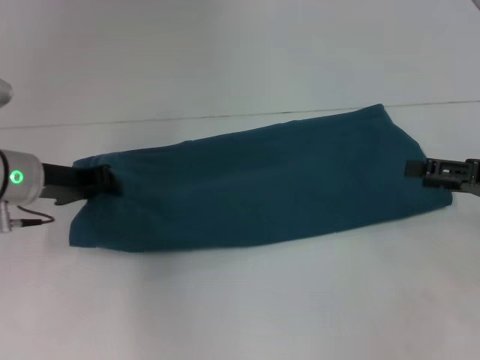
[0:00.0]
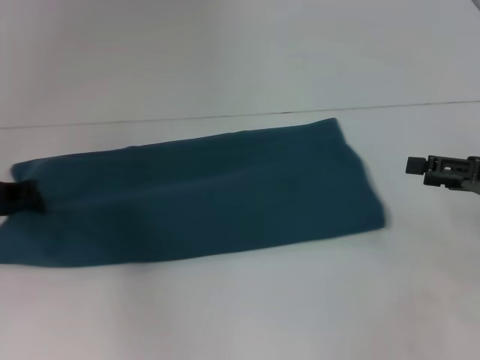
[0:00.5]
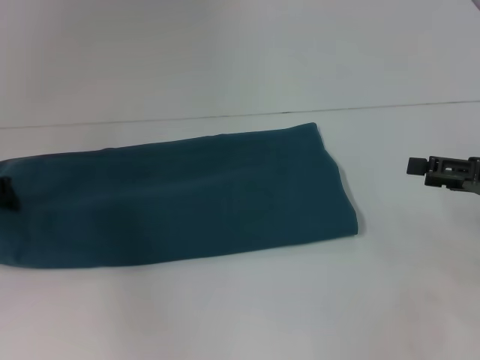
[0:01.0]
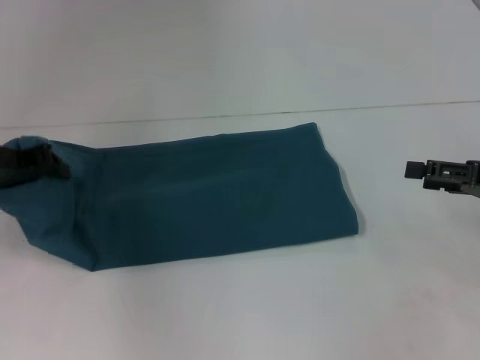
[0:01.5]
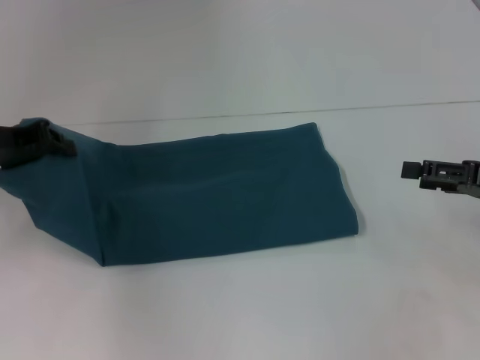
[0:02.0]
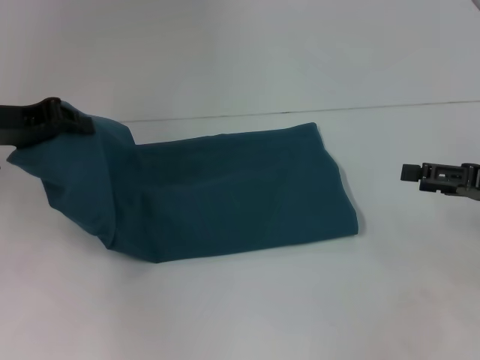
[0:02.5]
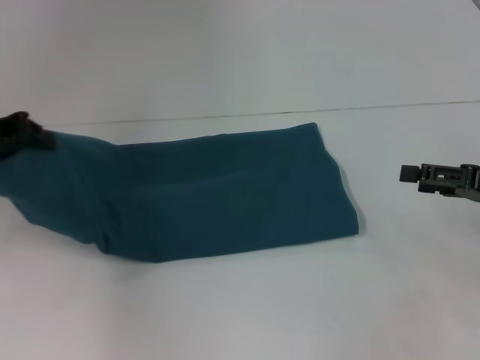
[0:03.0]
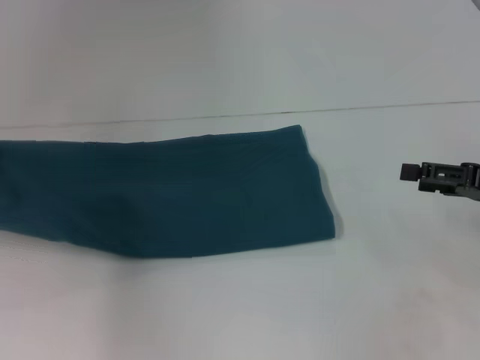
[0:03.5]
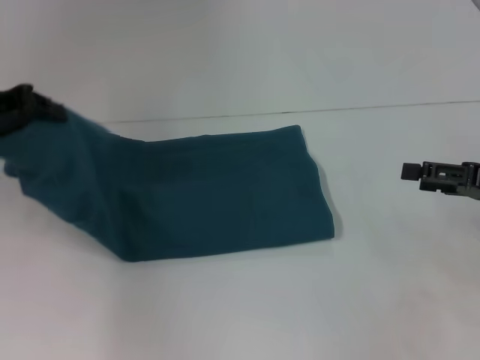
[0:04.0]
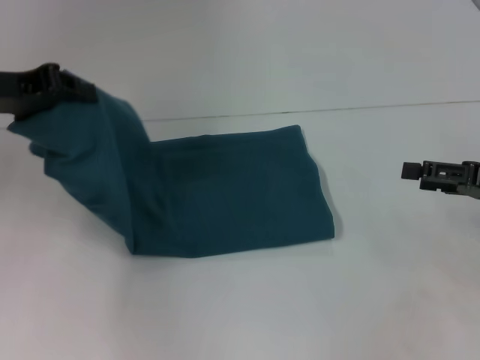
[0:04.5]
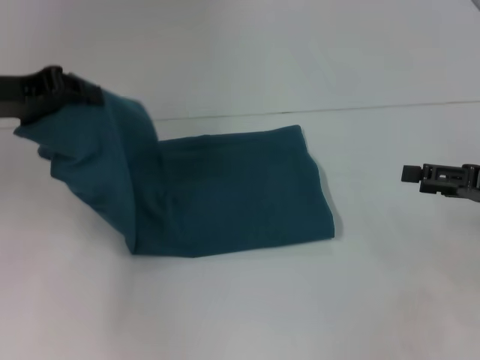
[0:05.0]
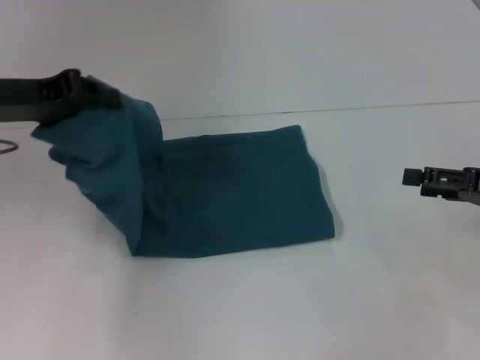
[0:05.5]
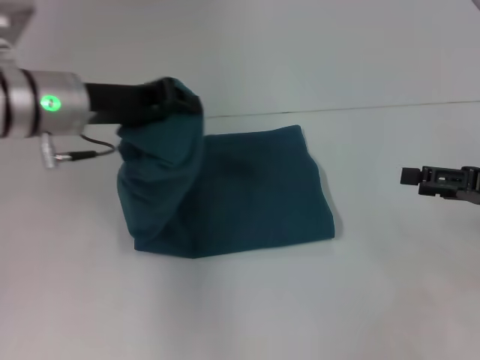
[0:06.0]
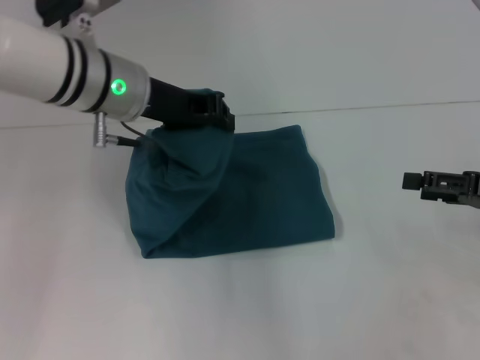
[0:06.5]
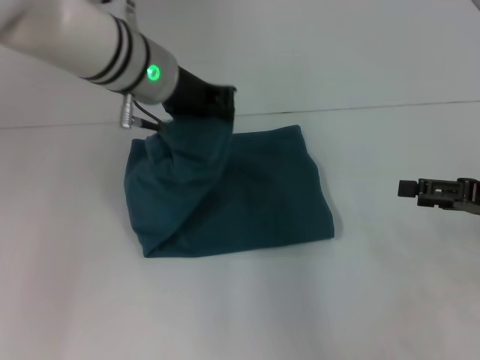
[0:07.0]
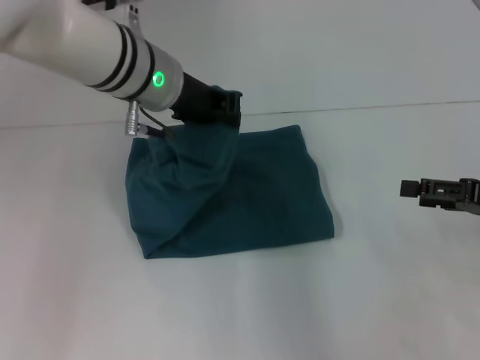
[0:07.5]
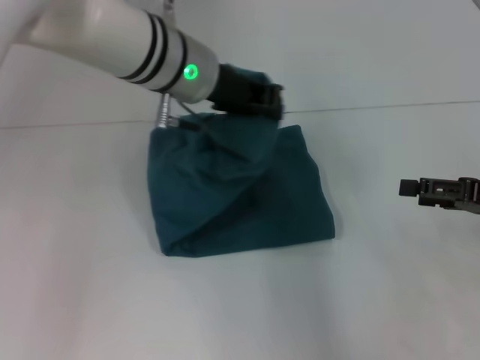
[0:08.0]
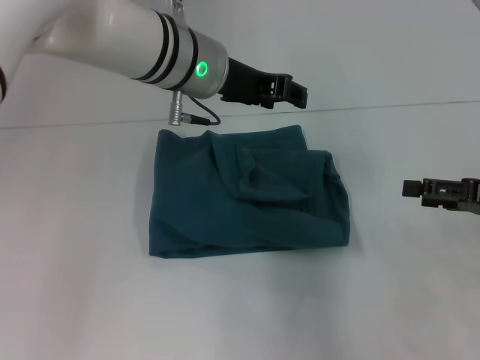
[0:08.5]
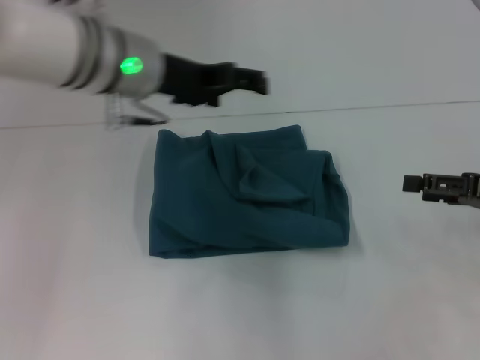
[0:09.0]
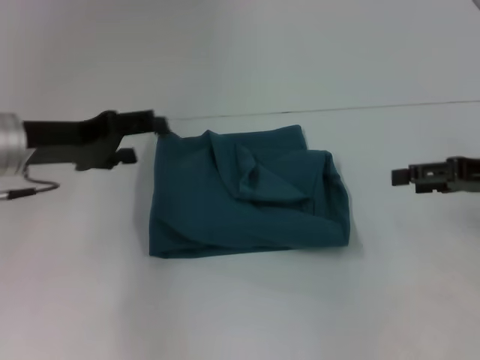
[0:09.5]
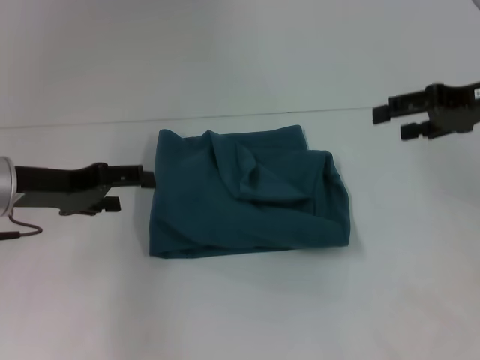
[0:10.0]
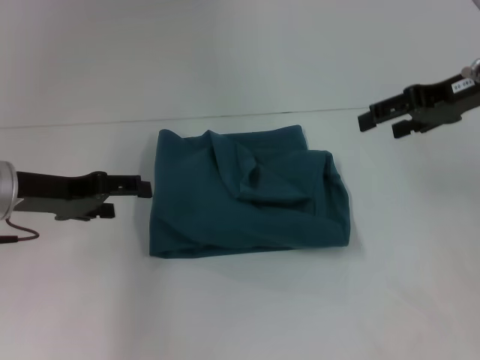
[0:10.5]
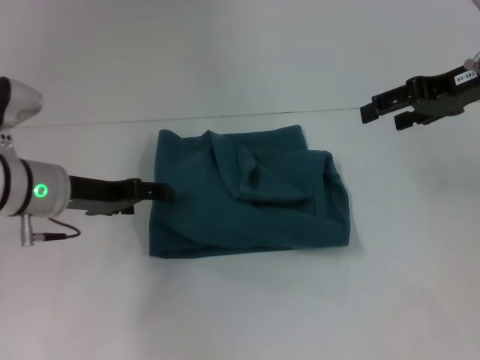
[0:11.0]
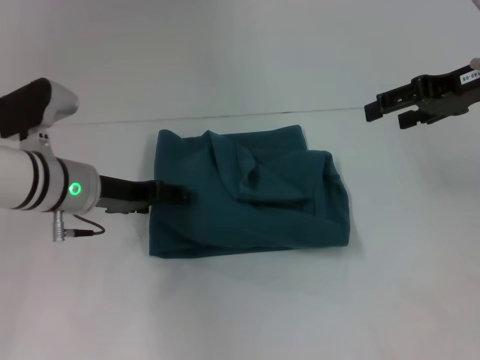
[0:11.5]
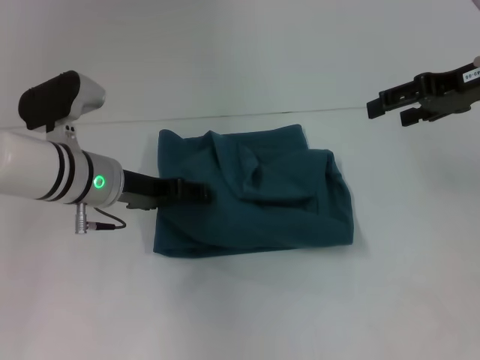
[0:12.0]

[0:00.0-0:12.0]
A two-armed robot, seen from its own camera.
Step, 0:00.0 to 0:08.0: Fold the clothes to the left.
0:00.0 to 0:02.0: The left gripper shifts approximately 10 cm upward and to the left.
0:02.0 to 0:04.0: The grippers make only small movements.
0:04.0 to 0:06.0: The left gripper goes roughly 10 cm to the right.
0:06.0 to 0:08.0: The left gripper is displaced to the right by roughly 10 cm.
0:08.0 to 0:10.0: The right gripper goes about 15 cm upward and forward. Meanwhile the left gripper goes approximately 20 cm to the left, and opens.
0:10.0 to 0:12.0: The left gripper goes some 10 cm to the right.

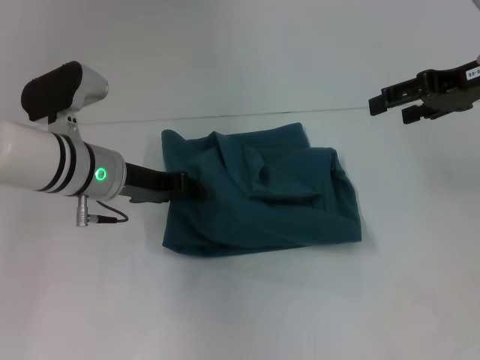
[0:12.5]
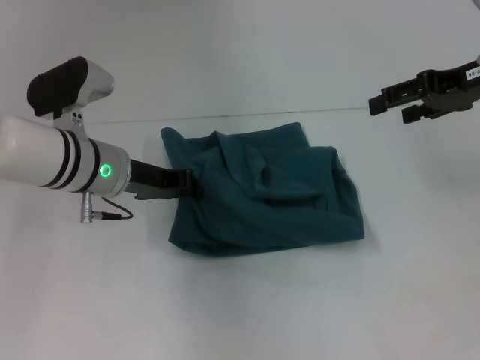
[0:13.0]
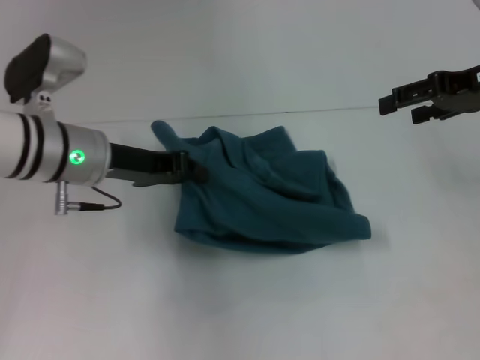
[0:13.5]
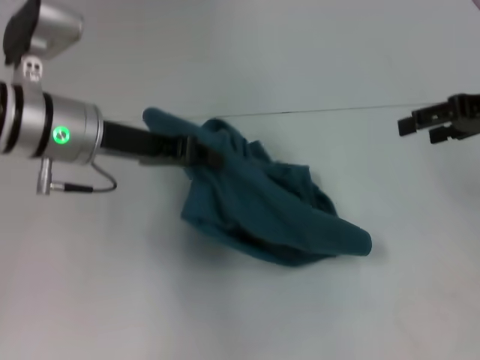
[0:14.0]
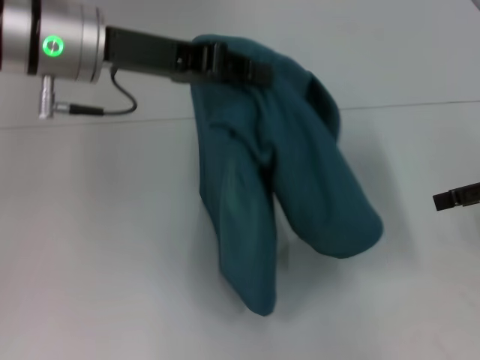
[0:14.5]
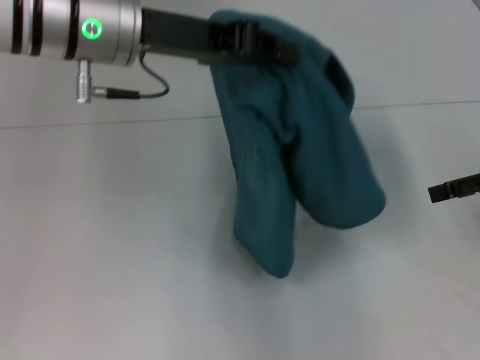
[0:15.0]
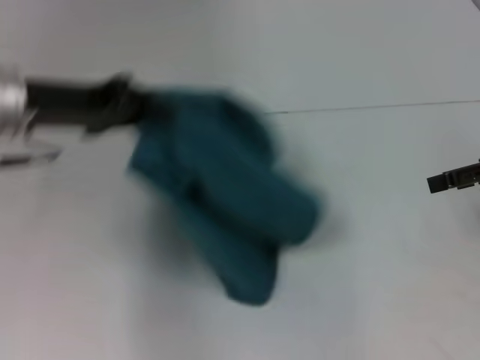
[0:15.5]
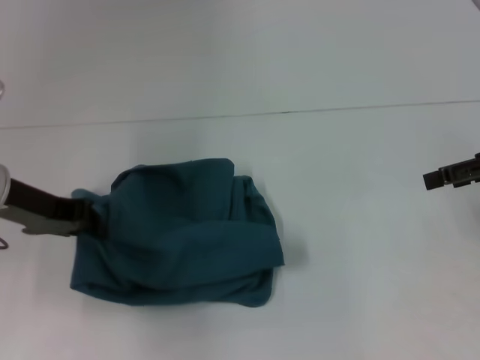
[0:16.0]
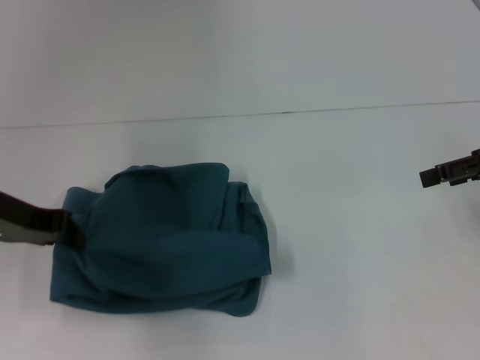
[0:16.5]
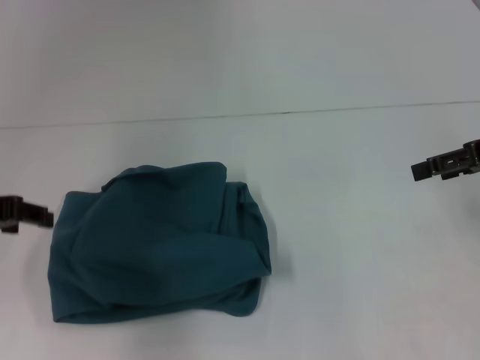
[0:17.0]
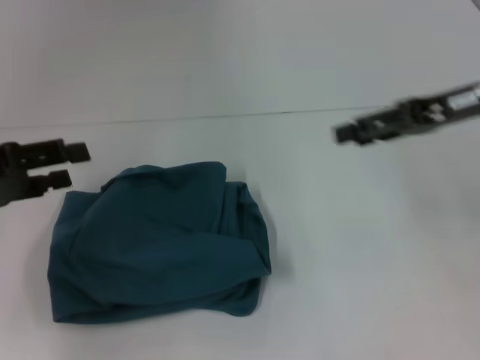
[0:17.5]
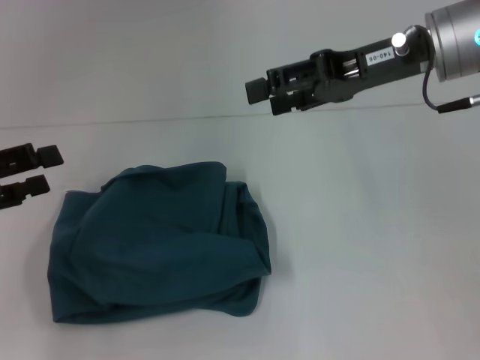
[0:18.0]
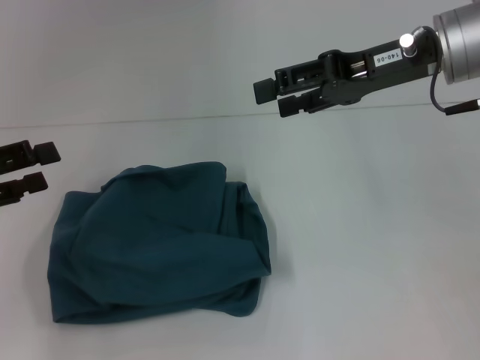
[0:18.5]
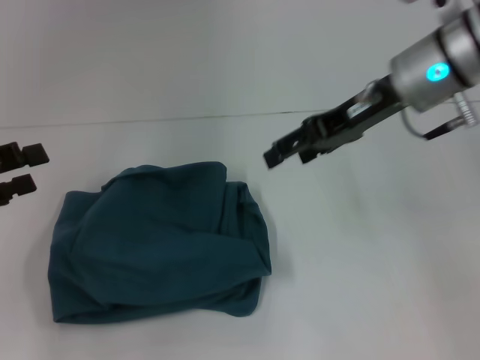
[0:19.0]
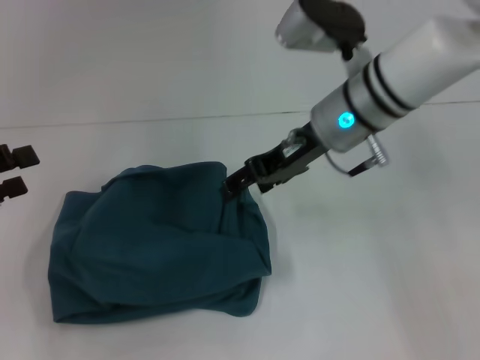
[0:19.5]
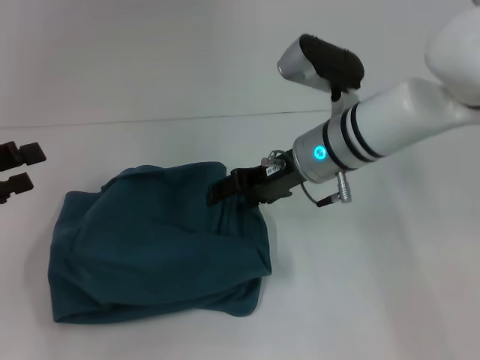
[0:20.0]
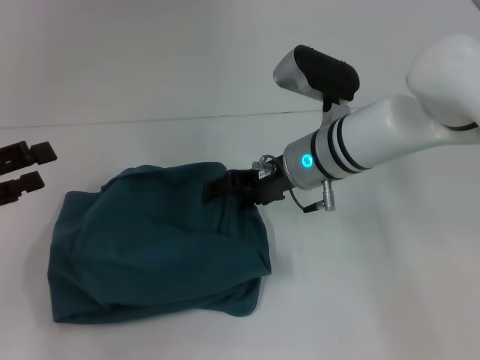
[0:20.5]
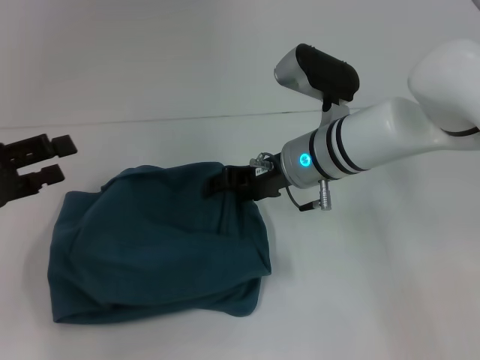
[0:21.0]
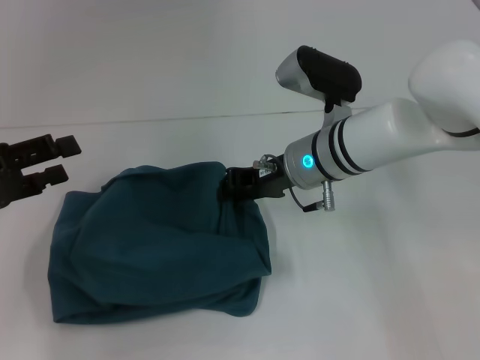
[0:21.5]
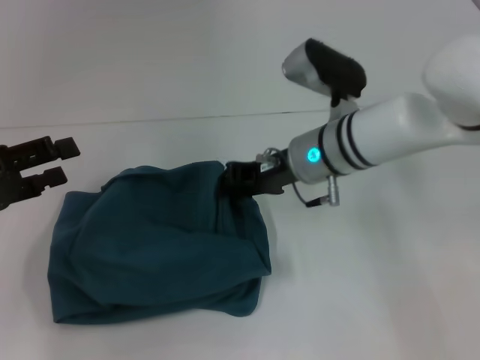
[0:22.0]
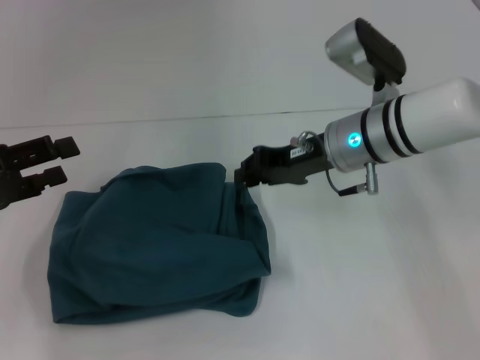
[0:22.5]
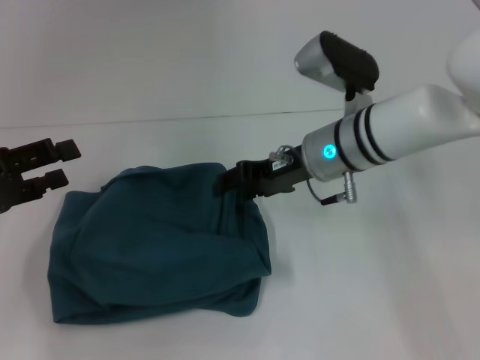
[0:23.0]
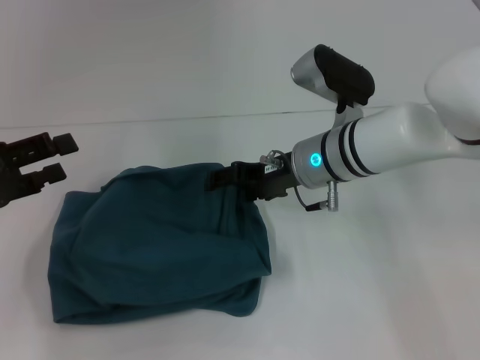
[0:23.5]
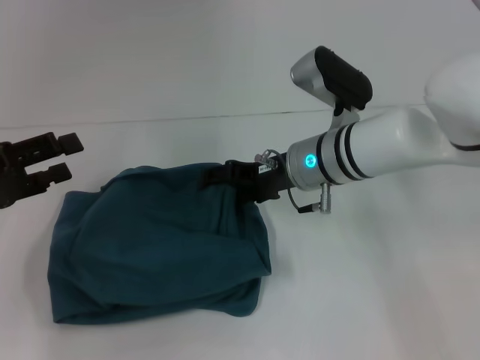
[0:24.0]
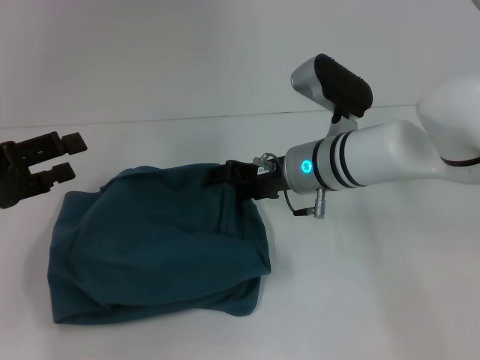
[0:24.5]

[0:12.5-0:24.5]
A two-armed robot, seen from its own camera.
0:12.5 to 0:14.5: The right gripper shifts some 10 cm backward, to the right and downward. The left gripper goes roughly 15 cm upward, and closes up.
0:14.5 to 0:16.5: The left gripper travels to the left and downward by about 15 cm.
0:16.5 to 0:18.5: The right gripper moves to the left and upward, approximately 15 cm, while the left gripper shifts about 10 cm to the left and backward, and opens.
0:18.5 to 0:20.5: The right gripper goes some 20 cm downward and to the left.
0:20.5 to 0:22.5: The right gripper closes up.
0:22.5 to 0:24.5: The right gripper moves roughly 5 cm, and opens.

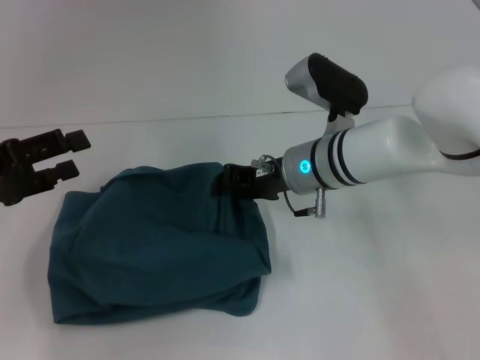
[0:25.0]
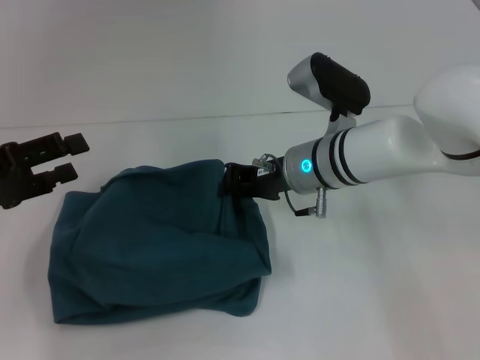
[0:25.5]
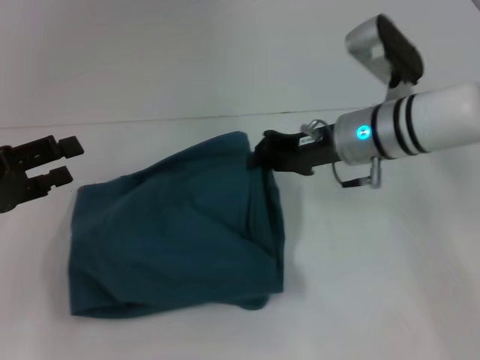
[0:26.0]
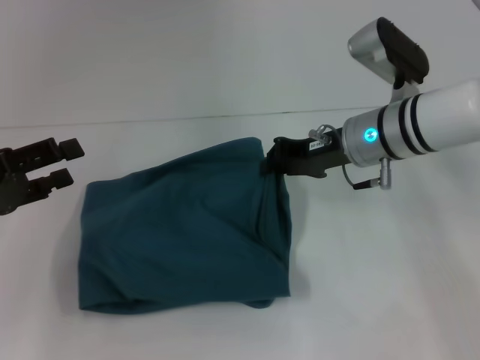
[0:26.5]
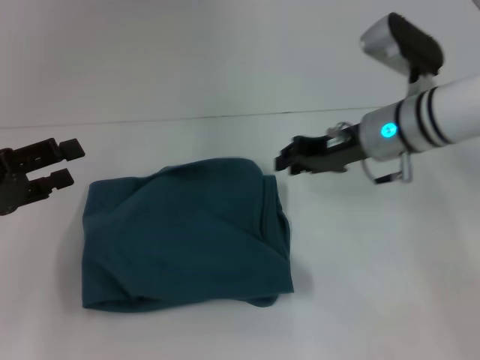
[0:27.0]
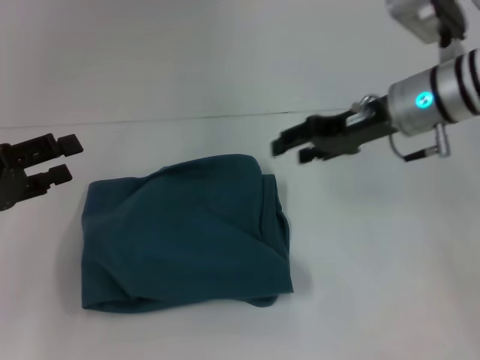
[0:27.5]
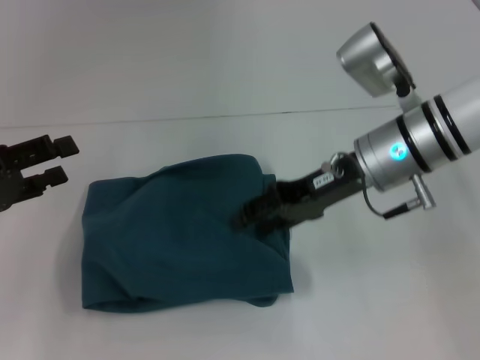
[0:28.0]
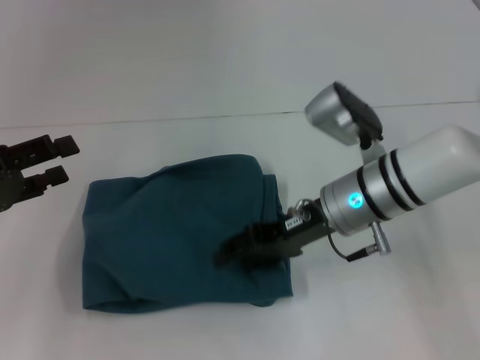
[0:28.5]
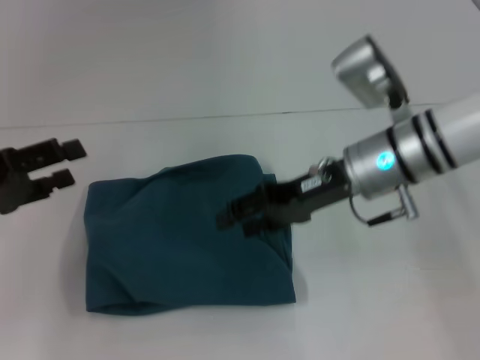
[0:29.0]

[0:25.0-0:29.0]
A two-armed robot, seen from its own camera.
0:25.0 to 0:27.0: The right gripper moves to the right, roughly 10 cm, and closes its fingers.
0:27.0 to 0:29.0: The right gripper goes up and down, approximately 5 cm each way, reversing 2 times, and opens up.
